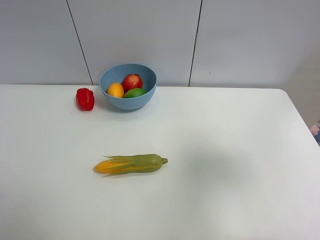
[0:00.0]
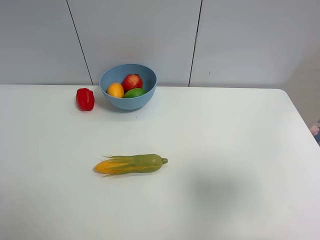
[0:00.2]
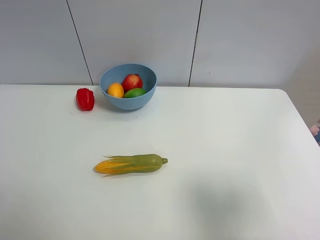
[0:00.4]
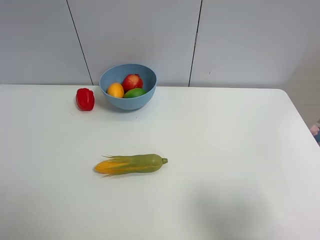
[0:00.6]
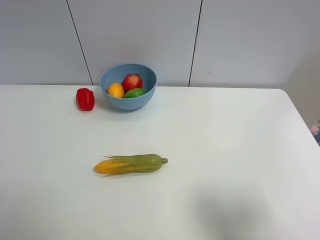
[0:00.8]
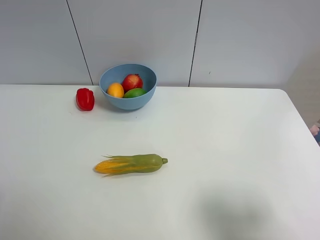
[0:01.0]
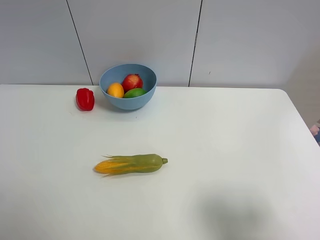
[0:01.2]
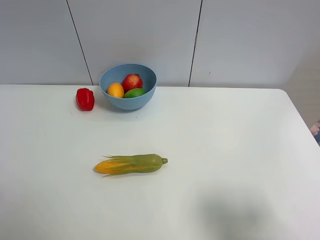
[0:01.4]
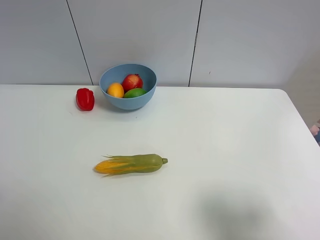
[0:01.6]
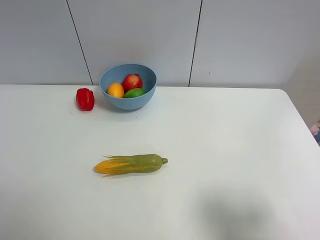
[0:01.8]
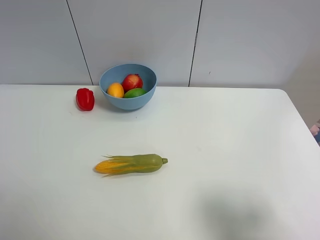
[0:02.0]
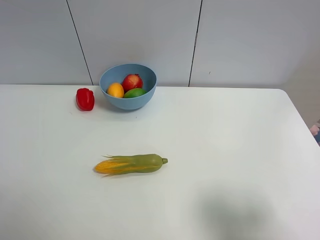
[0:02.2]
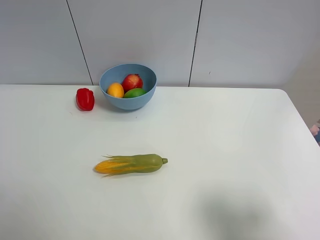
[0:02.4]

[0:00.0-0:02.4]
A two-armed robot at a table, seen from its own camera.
Task of the whole recording: Put the three fruits on the table into a bowl.
0:00.0 to 0:01.2: The right gripper is displaced downward and backward by about 15 cm.
0:01.2 to 0:02.4: Neither gripper changes place.
